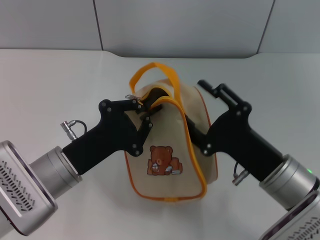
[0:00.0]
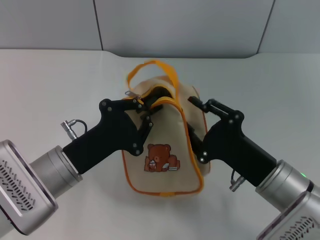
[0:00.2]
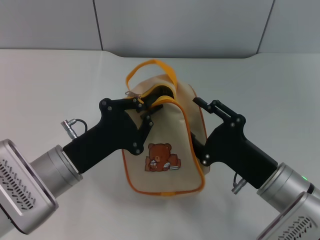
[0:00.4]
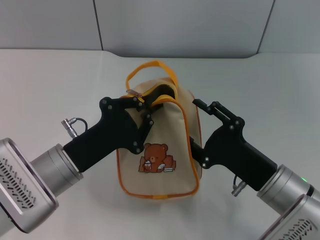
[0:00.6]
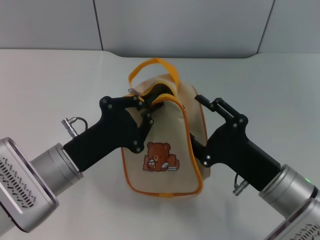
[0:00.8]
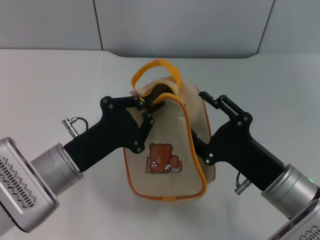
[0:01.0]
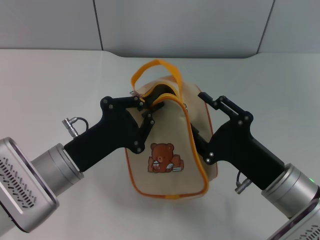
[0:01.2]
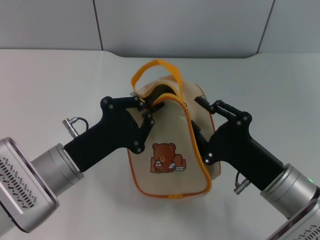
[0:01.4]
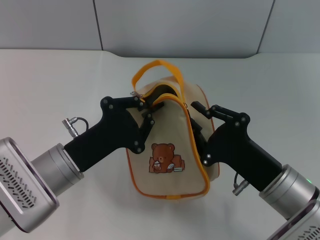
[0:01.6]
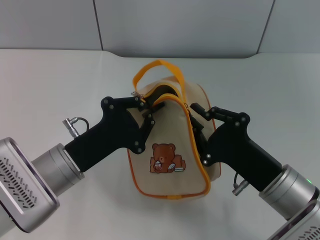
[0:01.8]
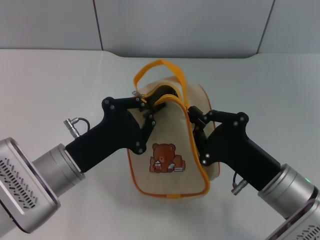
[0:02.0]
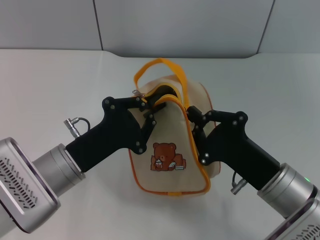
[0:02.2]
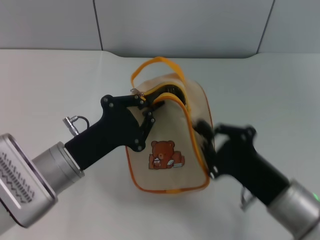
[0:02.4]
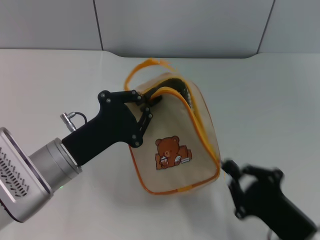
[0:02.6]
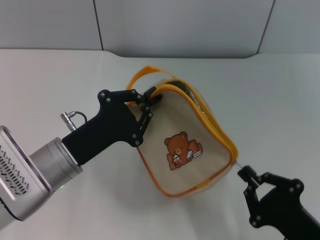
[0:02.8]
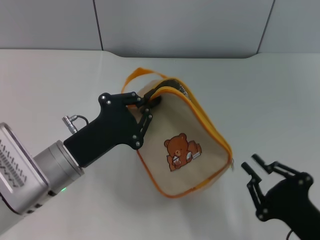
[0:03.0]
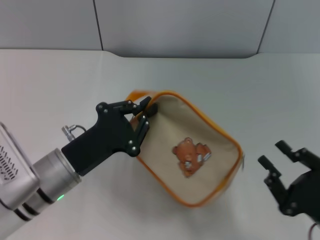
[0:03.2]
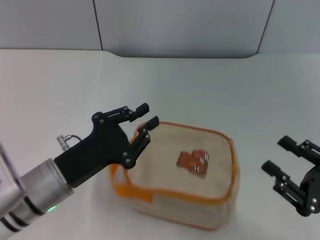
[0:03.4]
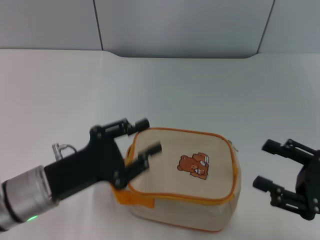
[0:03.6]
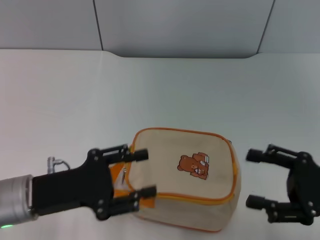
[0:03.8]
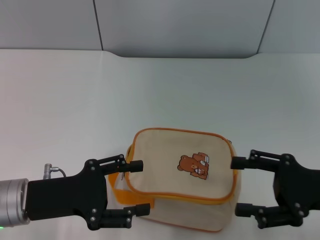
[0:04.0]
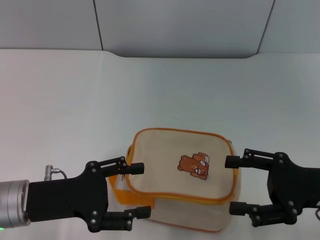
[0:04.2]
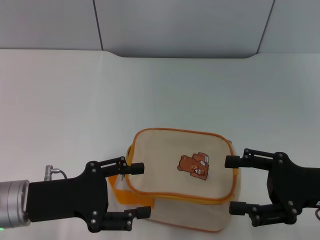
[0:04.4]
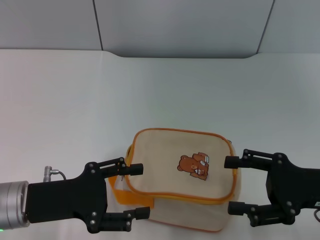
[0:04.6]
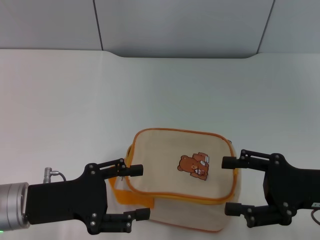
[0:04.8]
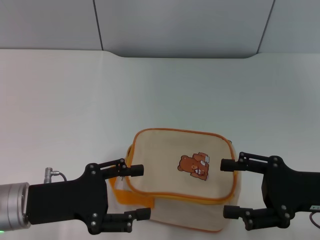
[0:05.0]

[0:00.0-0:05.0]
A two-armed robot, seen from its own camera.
Step, 0:00.0 to 0:03.0: Unzip the zipper of bag with right gripper.
Step, 0:03.2 to 0:03.4: Place the bag on the table with left gripper.
0:00.0 to 0:01.6: The right gripper closes.
0:01.6 to 0:03.4: The right gripper heads to the right and backward, covering roughly 15 cm, and closes, then opens again.
0:03.4 to 0:05.0: The right gripper is displaced forward by roughly 5 cm, and opens; the left gripper is displaced to the left by about 5 cm, and opens up.
